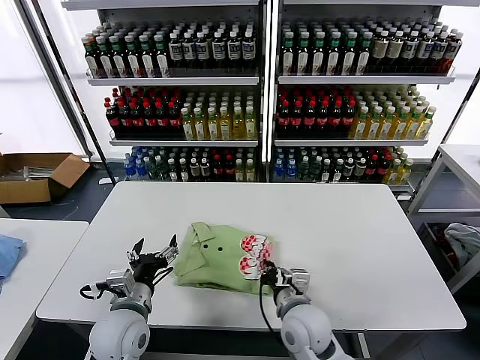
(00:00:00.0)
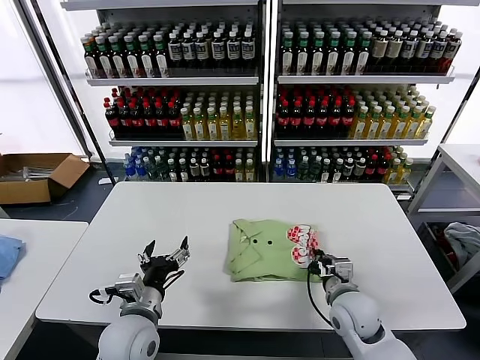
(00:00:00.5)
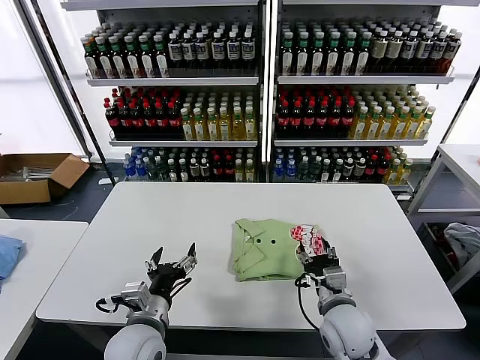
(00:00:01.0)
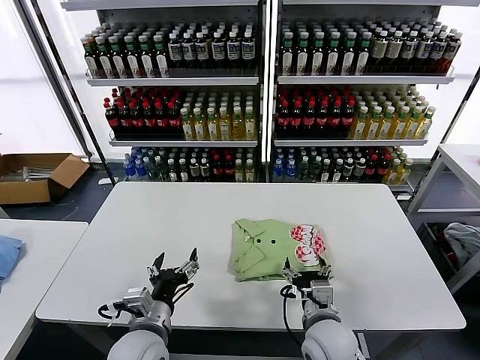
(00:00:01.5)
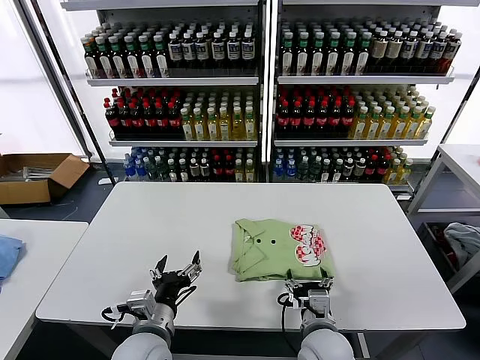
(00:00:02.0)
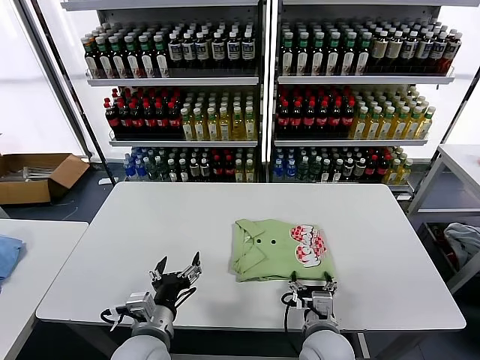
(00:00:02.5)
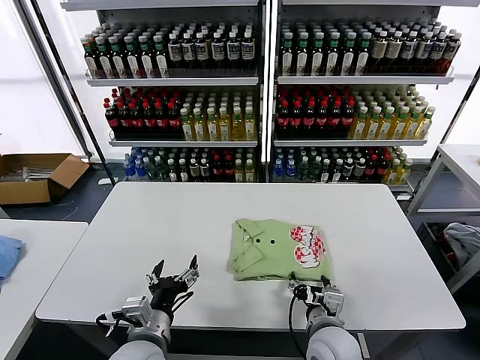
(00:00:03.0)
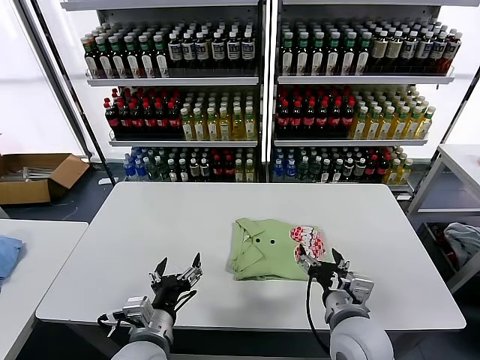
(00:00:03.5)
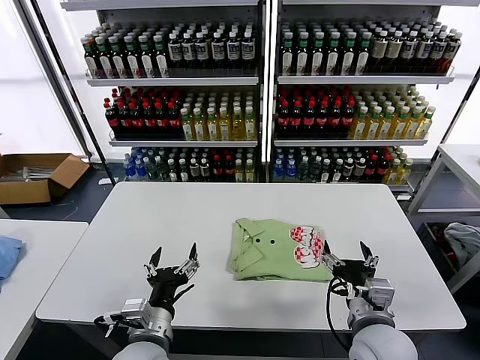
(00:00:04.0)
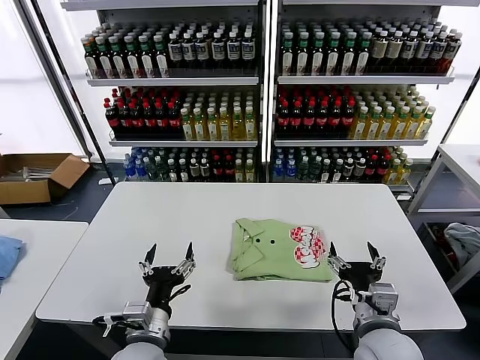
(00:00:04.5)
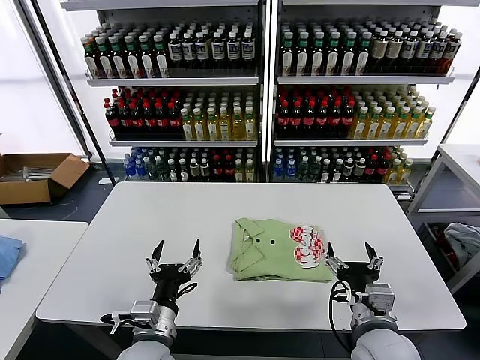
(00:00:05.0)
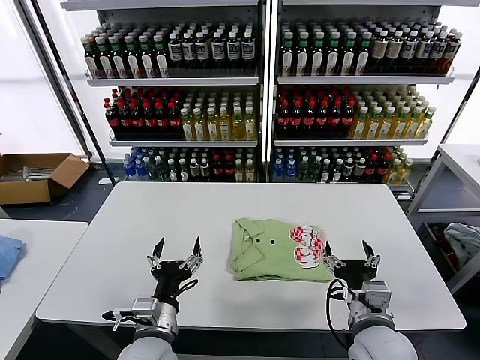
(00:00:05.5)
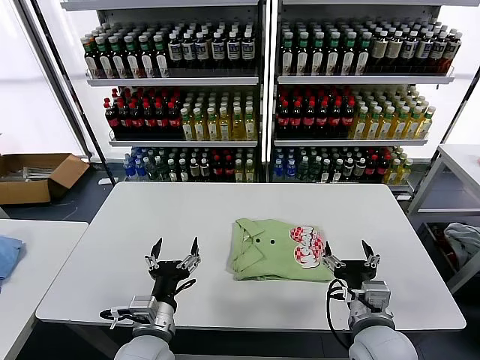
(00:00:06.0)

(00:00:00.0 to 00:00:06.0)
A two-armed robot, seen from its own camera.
Task of the whole recording: fold and organize the clothes.
Step, 00:00:00.0 - 00:00:03.0: Drag the clothes to the center of the table.
00:00:00.0 - 00:00:02.0: The right gripper travels to the right and back again, some 10 cm each way, and opens up. The left gripper shifts by some 5 cm.
00:00:02.0 - 00:00:04.0: The right gripper is displaced upward and to the right by approximately 10 cm.
00:00:04.0 - 00:00:06.0: The grippers stay close to where they were, moving slightly.
